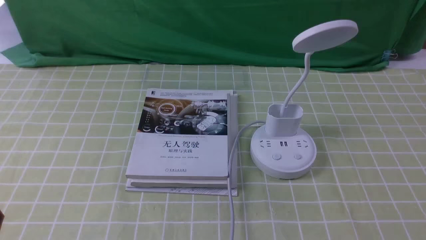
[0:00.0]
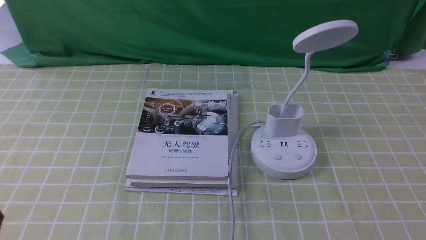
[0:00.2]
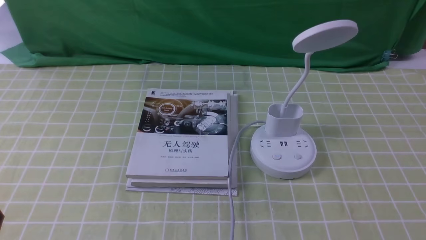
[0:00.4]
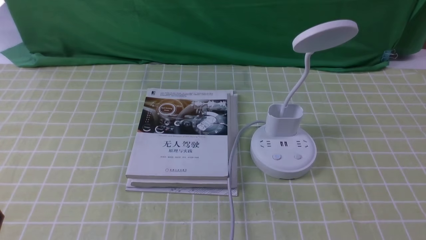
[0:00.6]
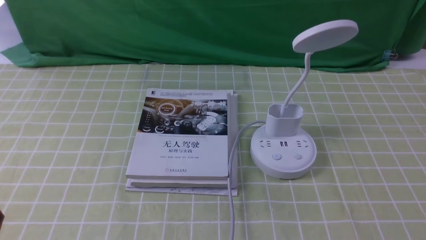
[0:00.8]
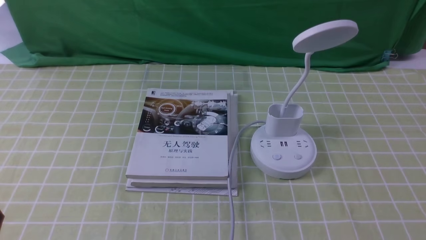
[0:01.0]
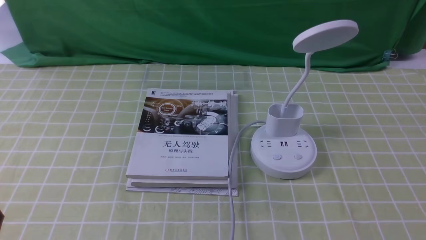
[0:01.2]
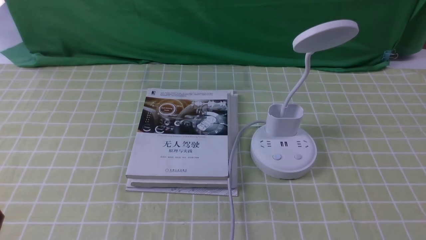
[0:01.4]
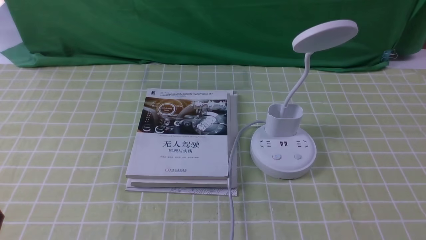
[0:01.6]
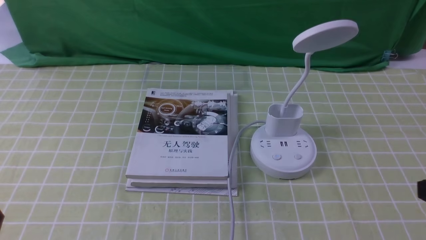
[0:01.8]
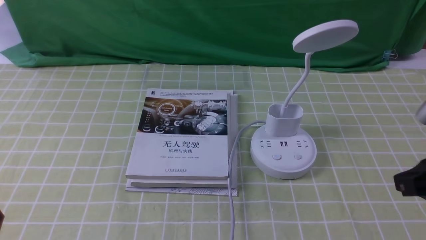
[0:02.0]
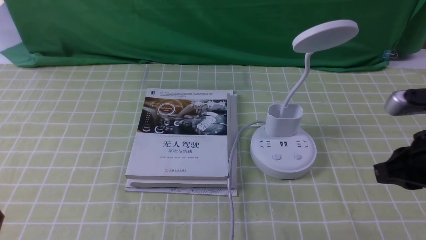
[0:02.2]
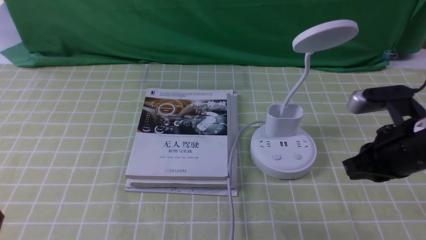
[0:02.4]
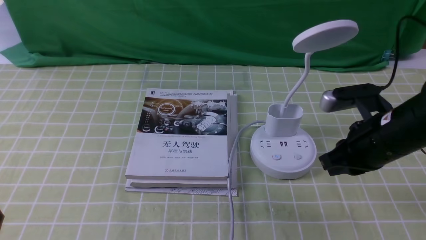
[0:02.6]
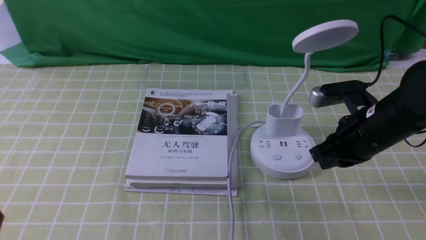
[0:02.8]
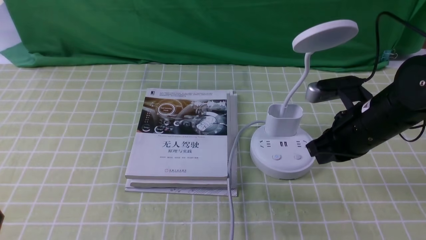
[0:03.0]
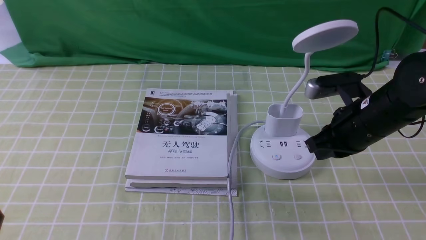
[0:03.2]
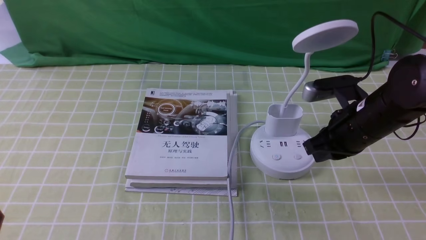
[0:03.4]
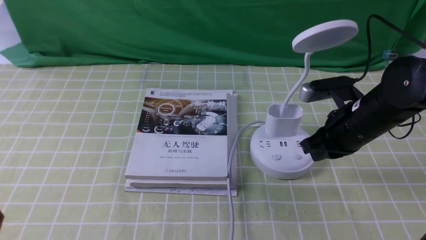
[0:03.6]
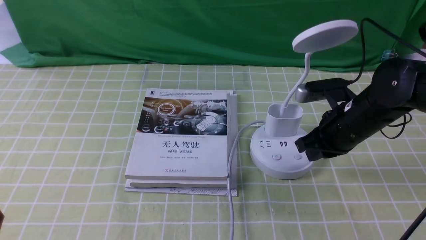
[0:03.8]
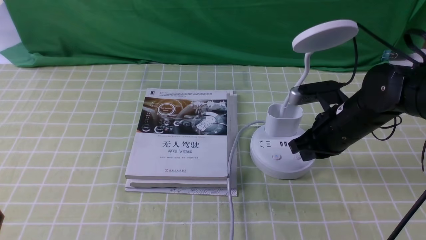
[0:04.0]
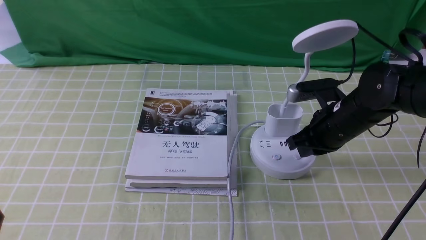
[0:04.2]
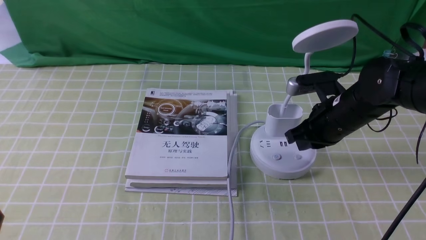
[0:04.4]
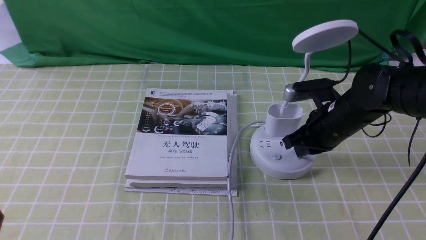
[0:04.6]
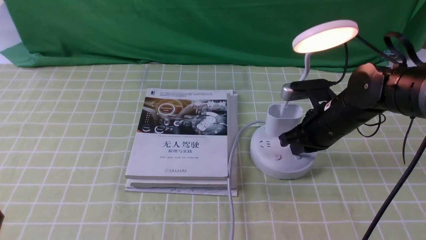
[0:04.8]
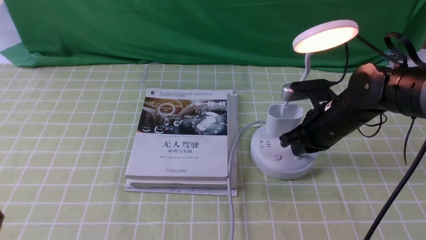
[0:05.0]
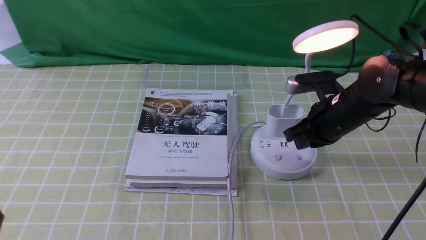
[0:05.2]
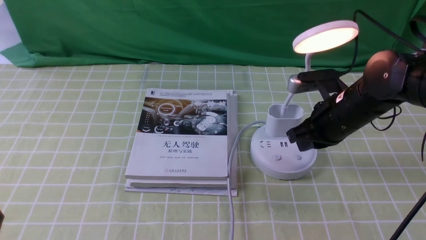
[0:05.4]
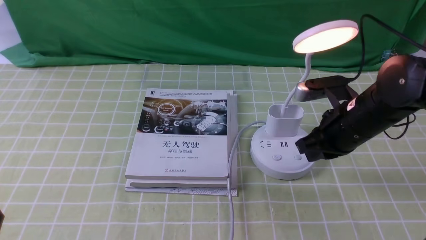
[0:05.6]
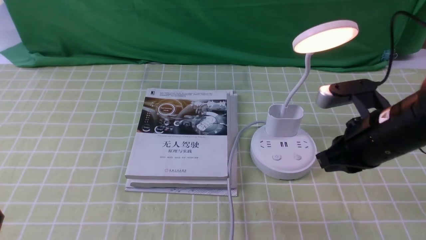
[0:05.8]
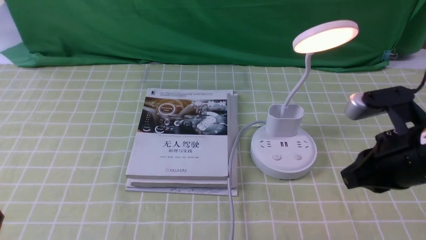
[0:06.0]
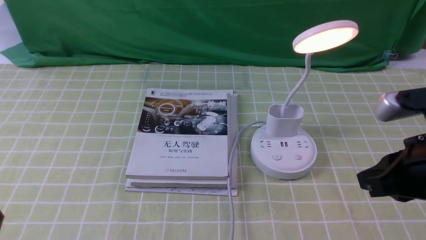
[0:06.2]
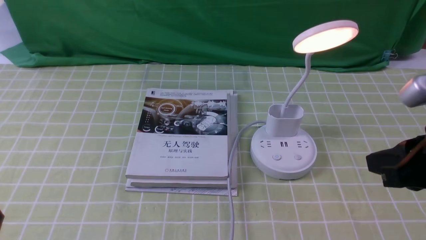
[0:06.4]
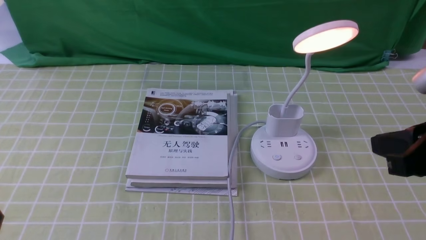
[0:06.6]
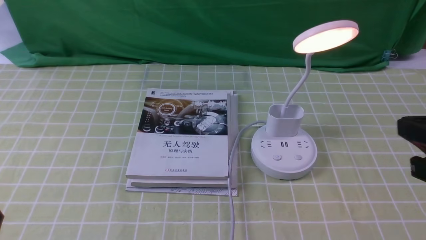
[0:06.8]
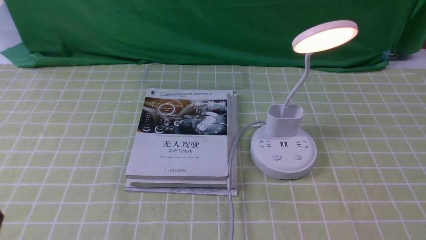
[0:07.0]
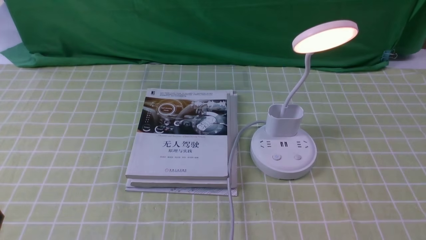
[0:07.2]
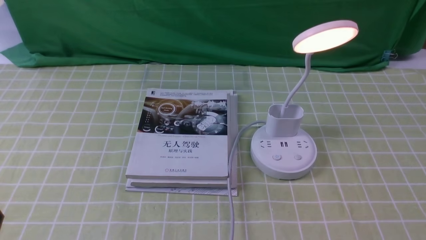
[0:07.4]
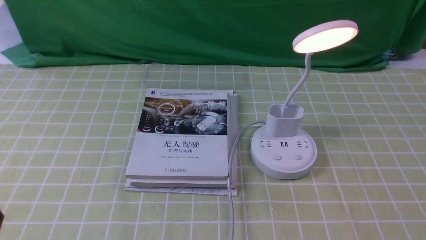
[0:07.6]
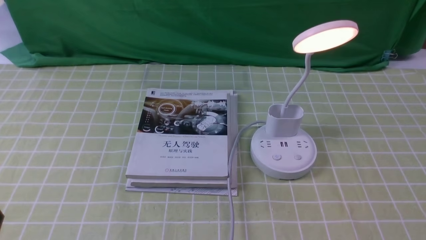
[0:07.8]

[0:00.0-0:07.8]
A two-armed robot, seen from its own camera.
Step, 0:00.0 to 0:05.0: use the right arm to press the button switch on the lamp holder.
0:01.6 to 0:03.2: The right gripper goes some 25 cm forward and to the left.
0:03.2 to 0:04.6: The right gripper changes place by some 5 cm.
0:04.6 to 0:06.2: The right gripper goes approximately 20 cm backward and upward.
0:06.2 to 0:07.8: The right gripper heads backward, downward and to the right, covering roughly 20 cm.

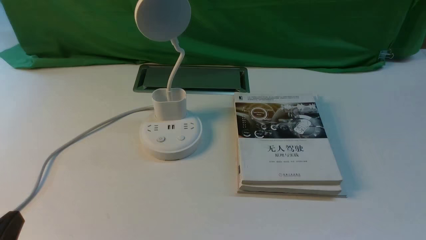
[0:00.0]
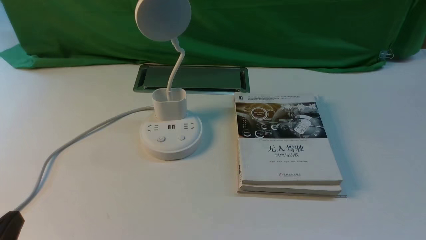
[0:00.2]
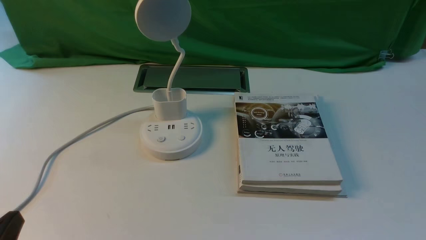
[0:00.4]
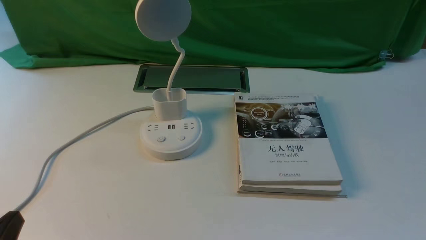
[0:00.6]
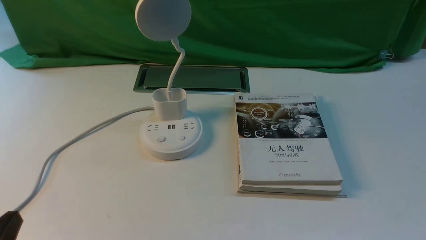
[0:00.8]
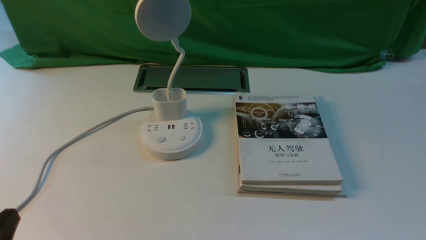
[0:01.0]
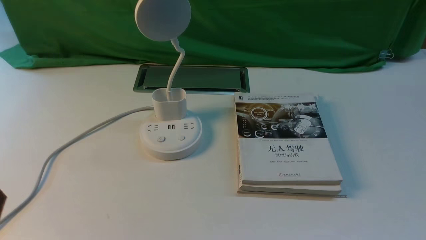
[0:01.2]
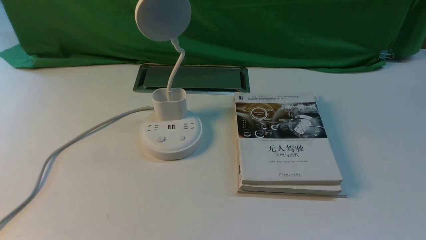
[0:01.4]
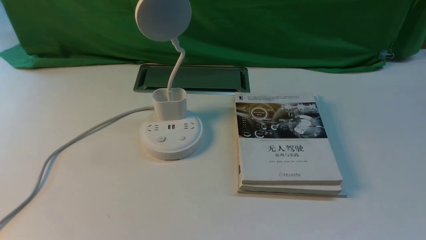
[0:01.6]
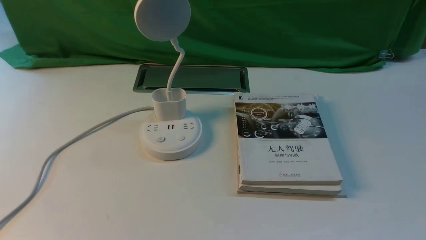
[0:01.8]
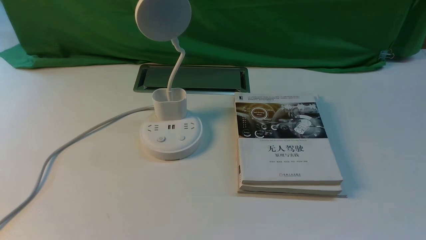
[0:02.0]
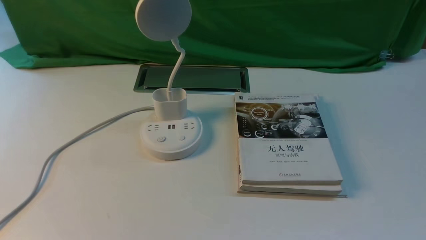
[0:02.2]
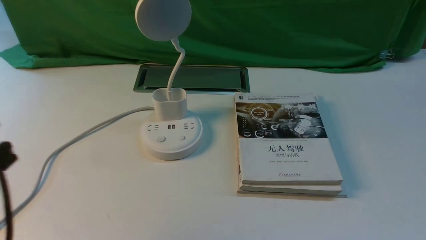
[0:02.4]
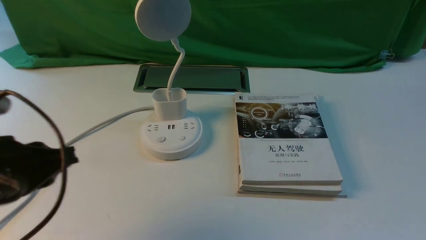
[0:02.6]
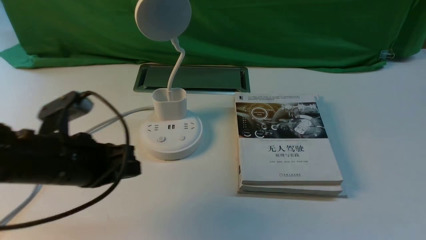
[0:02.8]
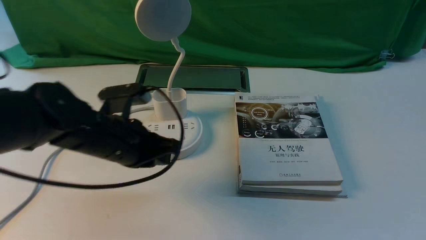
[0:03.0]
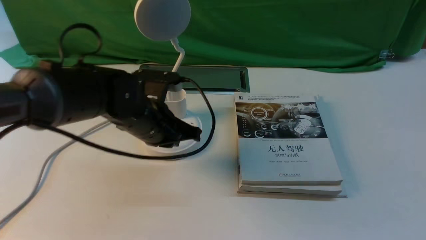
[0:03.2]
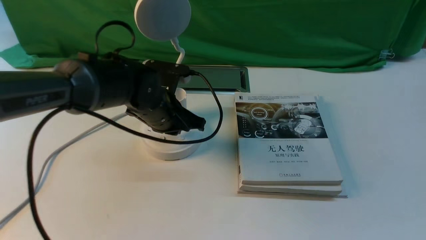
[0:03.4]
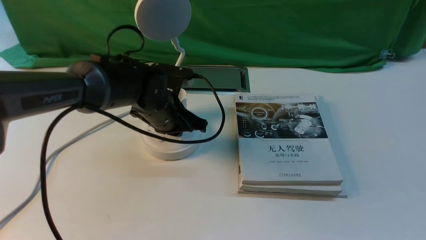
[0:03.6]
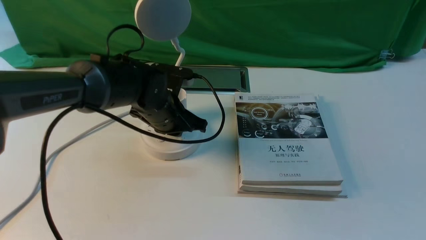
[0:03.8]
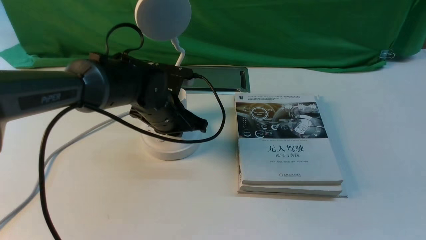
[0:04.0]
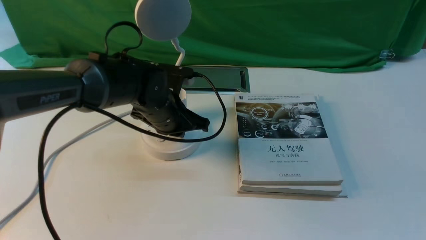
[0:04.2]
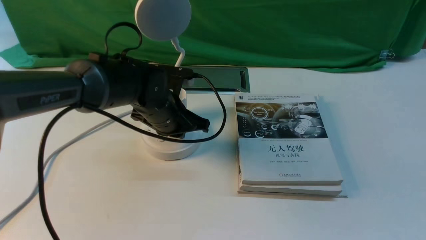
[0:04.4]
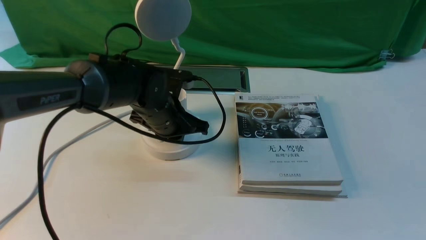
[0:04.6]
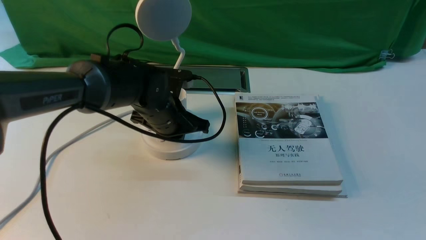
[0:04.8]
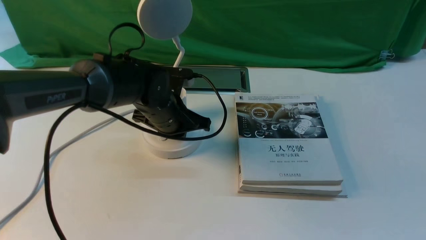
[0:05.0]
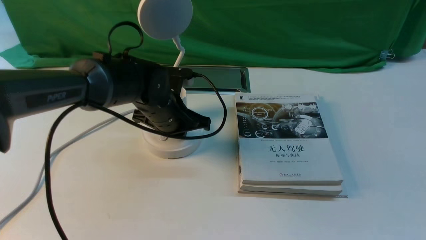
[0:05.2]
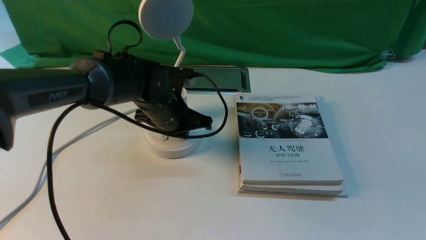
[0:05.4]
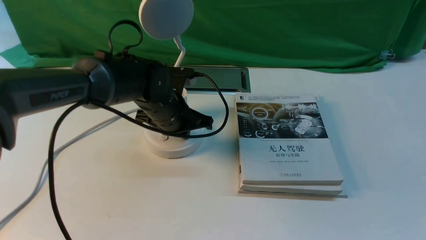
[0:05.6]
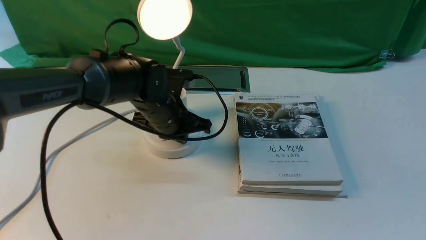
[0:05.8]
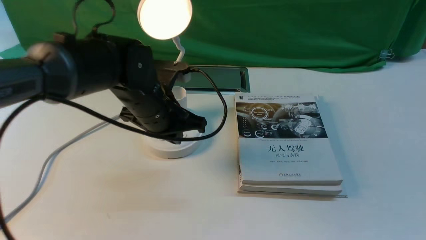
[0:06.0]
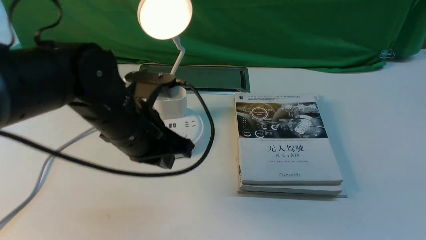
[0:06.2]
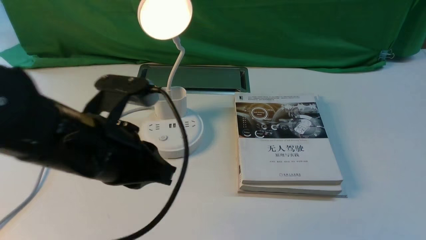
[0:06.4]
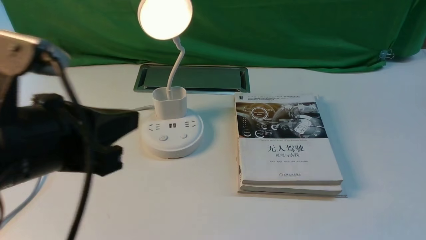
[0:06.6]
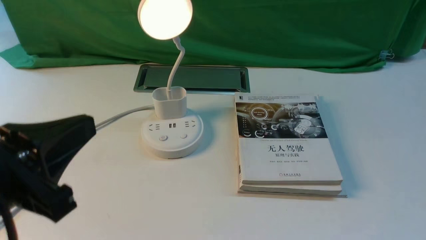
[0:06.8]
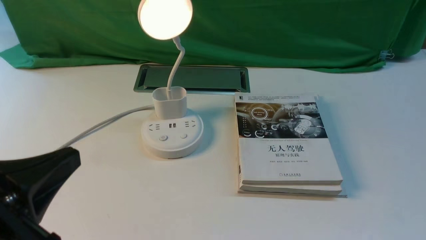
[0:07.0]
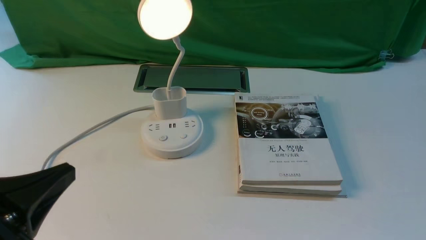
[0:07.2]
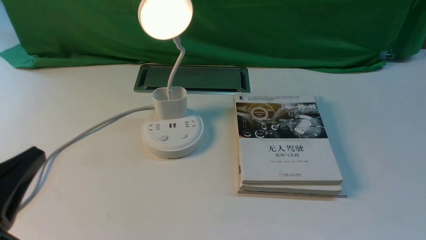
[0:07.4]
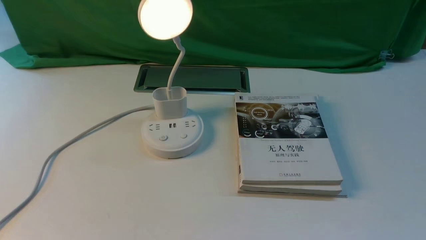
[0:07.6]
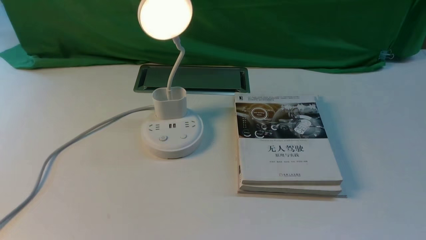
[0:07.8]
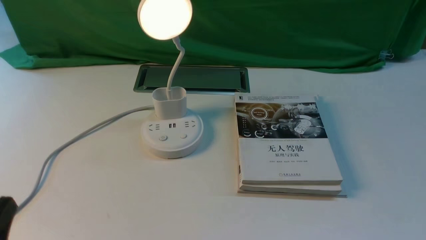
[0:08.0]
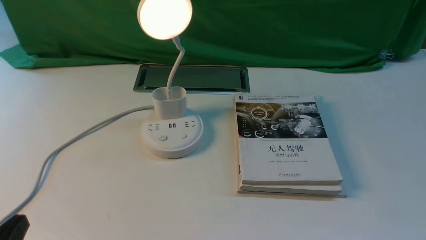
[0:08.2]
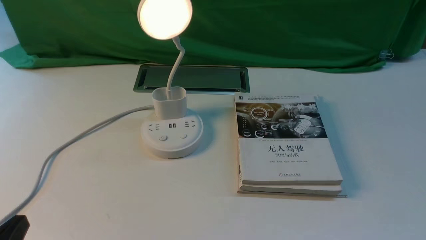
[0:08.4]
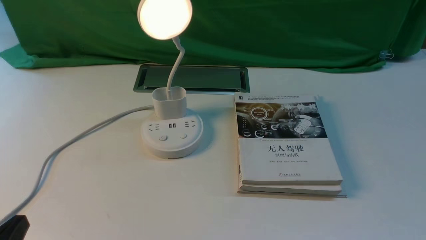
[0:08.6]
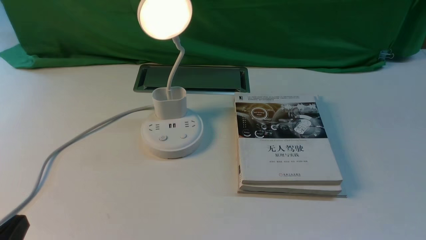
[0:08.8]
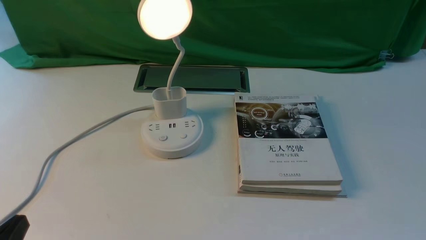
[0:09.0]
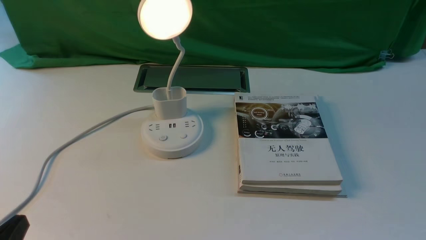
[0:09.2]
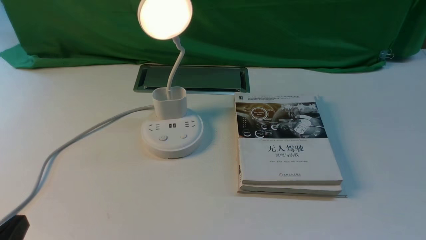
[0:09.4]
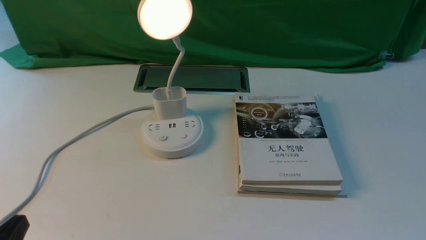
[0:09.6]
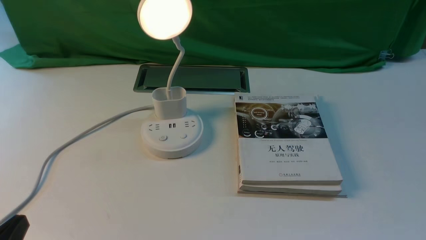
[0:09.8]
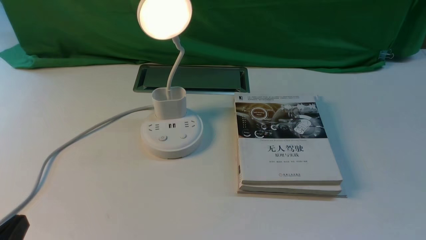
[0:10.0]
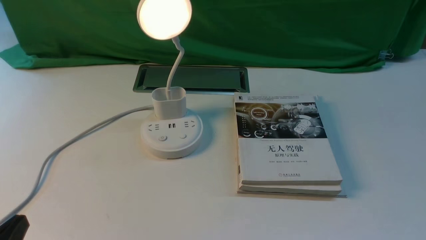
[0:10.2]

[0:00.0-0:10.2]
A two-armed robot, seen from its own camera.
Step, 0:00.0 to 0:06.2: use the left arm to press the button switch on the lamp holder.
0:01.4 to 0:03.0: The left gripper heads forward and to the right, covering approximately 25 cm.
0:03.0 to 0:04.4: The left gripper travels forward and to the right by approximately 10 cm.
0:04.4 to 0:05.8: The grippers stay close to where they were, moving slightly.
0:05.8 to 0:07.2: The left gripper moves backward and to the left, some 30 cm.
0:07.2 to 0:08.8: The left gripper goes approximately 10 cm downward.
0:08.8 to 0:10.2: Neither gripper changes place.
